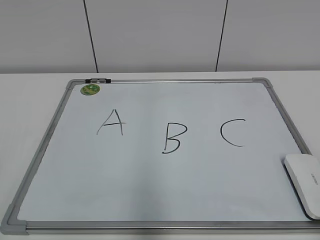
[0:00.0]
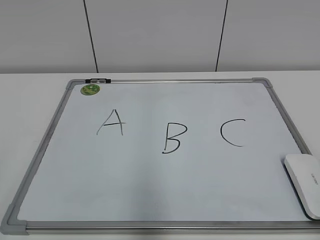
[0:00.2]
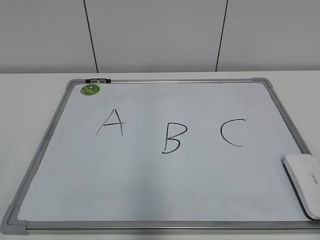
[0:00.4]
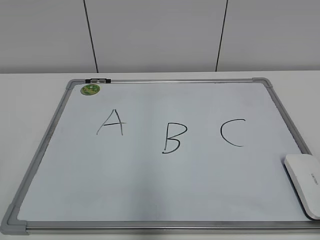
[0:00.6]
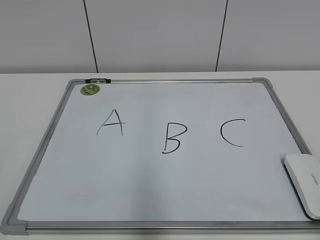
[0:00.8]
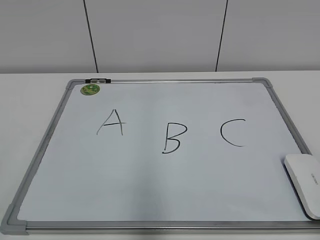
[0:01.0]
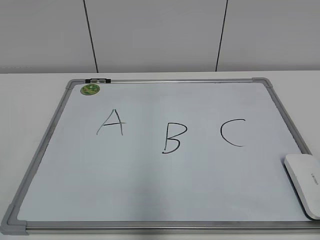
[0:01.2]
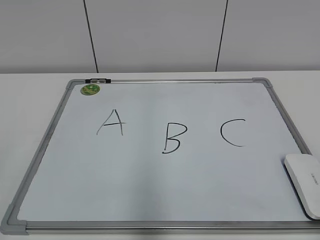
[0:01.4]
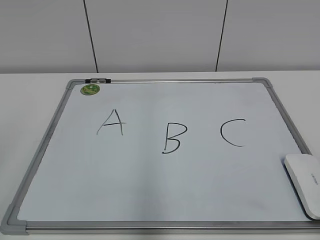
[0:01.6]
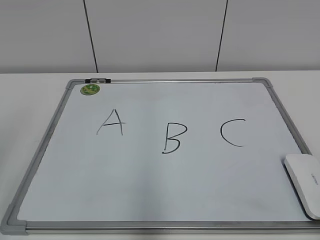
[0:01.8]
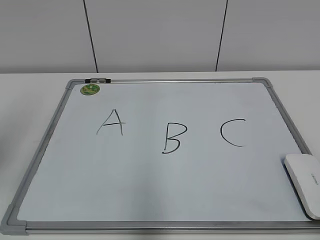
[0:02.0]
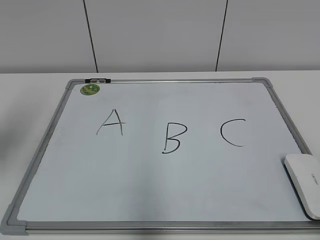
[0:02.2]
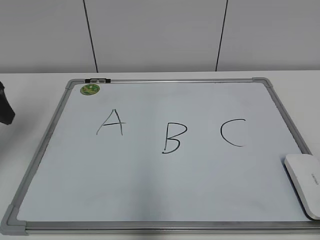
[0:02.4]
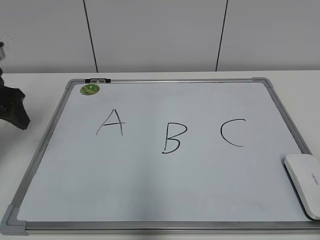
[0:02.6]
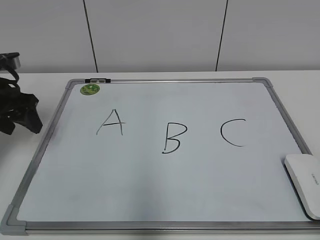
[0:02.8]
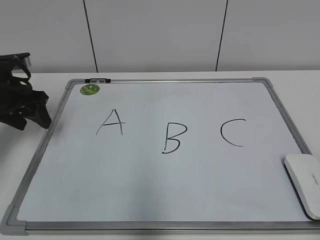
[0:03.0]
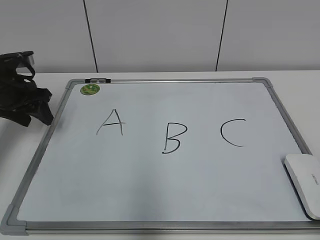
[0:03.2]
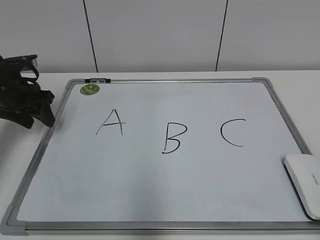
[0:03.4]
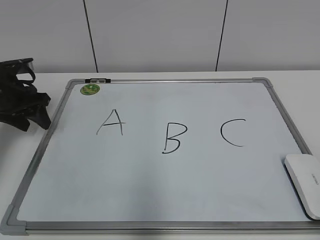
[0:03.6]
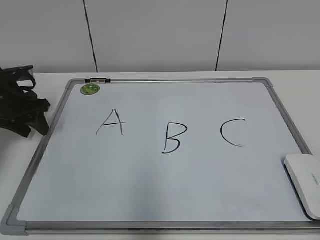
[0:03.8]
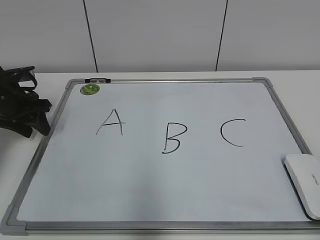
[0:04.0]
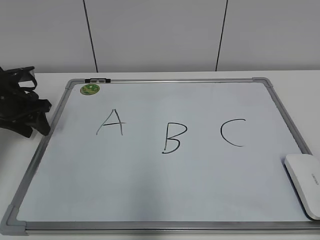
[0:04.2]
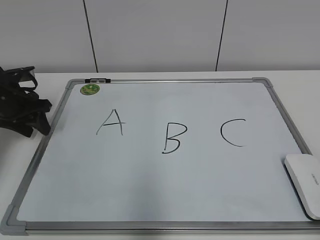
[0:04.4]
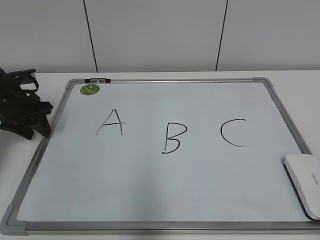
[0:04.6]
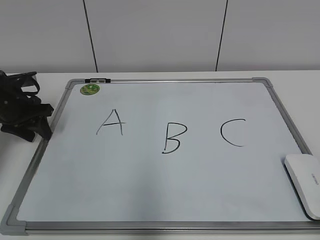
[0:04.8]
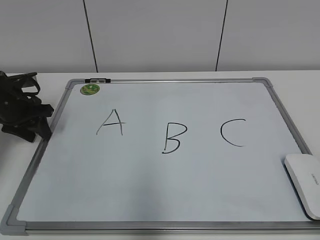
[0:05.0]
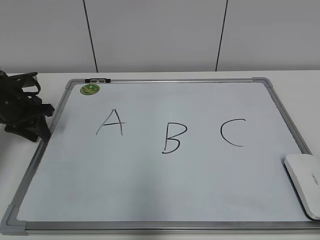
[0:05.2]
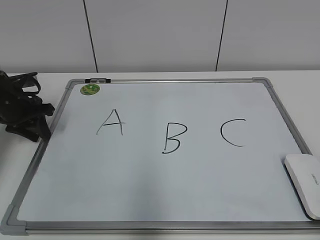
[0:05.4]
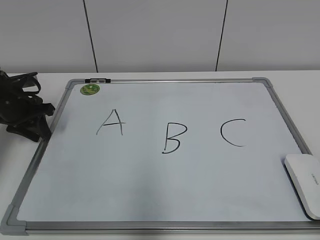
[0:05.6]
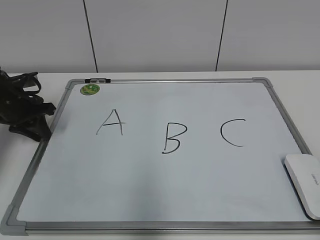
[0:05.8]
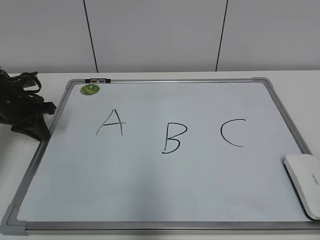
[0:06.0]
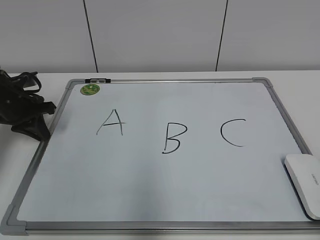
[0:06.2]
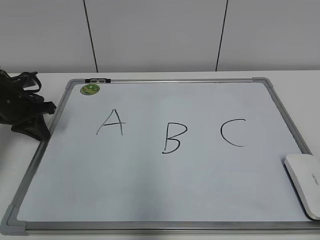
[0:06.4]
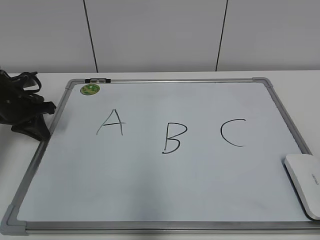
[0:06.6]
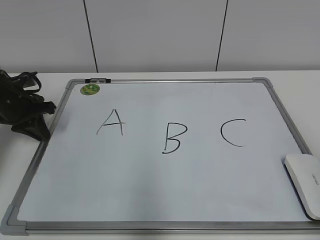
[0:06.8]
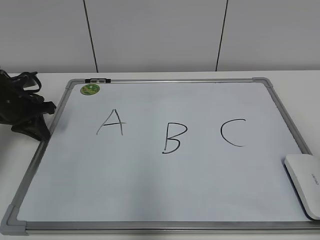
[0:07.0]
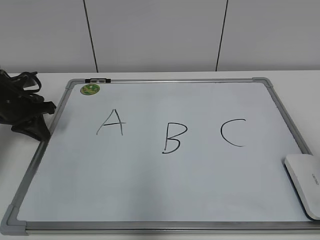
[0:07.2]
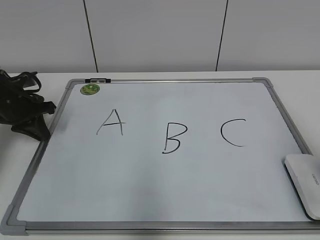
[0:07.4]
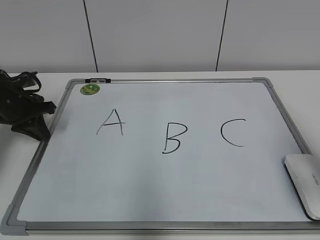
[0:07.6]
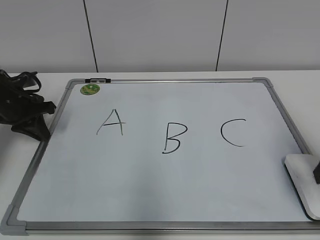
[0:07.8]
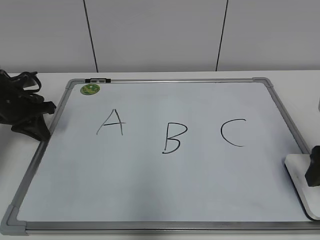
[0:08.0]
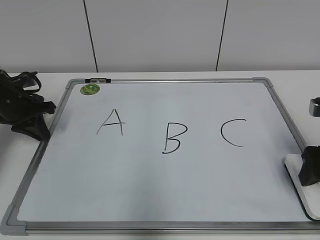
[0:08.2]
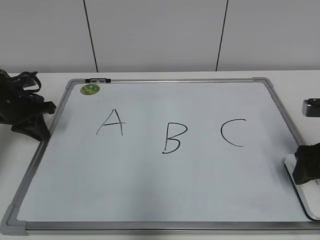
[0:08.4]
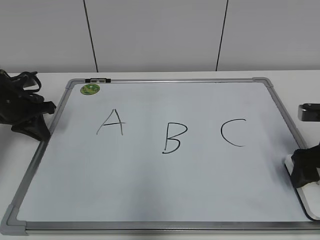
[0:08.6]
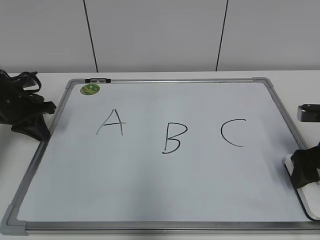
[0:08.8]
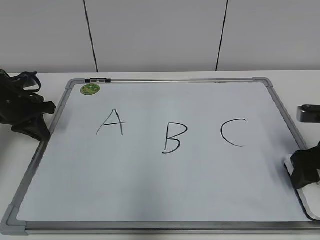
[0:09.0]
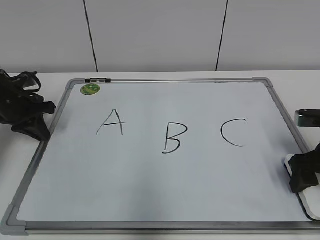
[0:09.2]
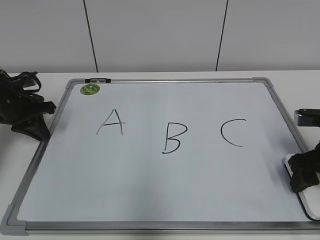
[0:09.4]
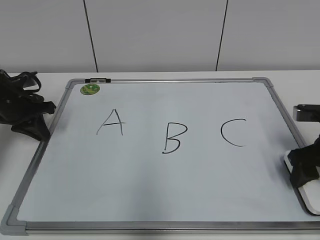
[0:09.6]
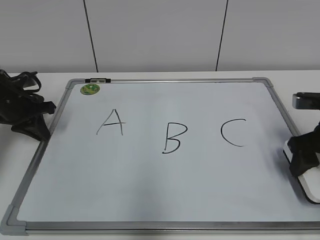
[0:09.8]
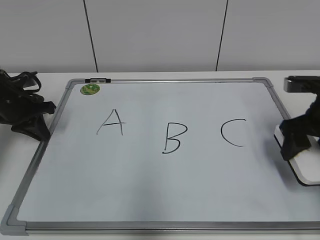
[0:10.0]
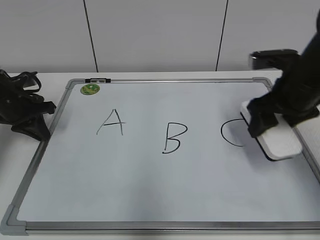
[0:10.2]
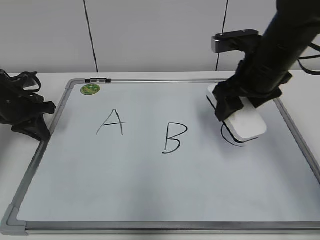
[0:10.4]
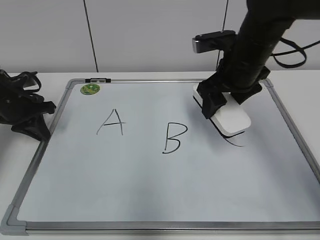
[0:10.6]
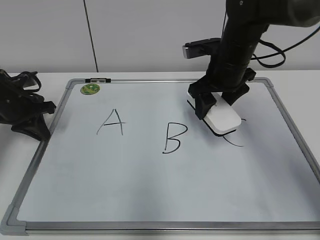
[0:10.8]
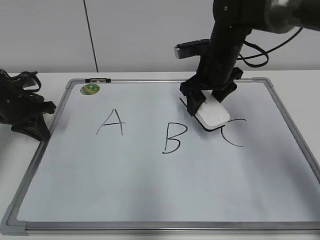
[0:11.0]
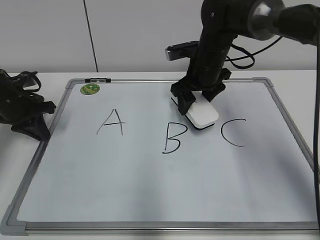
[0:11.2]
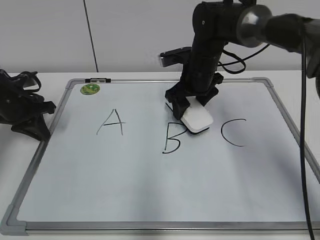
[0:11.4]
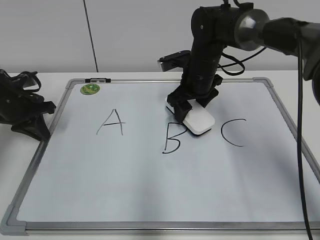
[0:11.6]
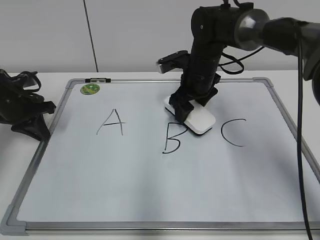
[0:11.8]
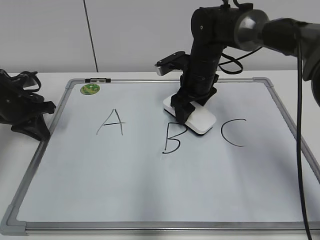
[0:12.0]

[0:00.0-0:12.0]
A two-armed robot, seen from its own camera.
Task of the whole recording: pick up the eraser on the blackboard and erase the letter "B".
Step, 0:00.0 to 0:05.8: Hold the drawing board steady with your left hand.
0:01.6 to 0:03.0: The left gripper travels forward and downward by approximately 35 cm.
0:03.0 to 0:04.4: The left gripper shifts by about 5 cm.
0:04.4 to 0:06.0: The left gripper closes its fingers.
0:06.0 to 0:07.6: The right gripper goes roughly 20 cm forward, and opens.
0:07.6 to 0:09.0: The right gripper goes roughly 10 cm forward and downward, and closes its fingers.
0:09.0 to 0:10.4: The right gripper goes roughly 15 cm to the left, upward and forward, and closes its fingers.
0:10.4 to 0:12.0: The right gripper heads forward, to the left and downward, covering roughly 15 cm.

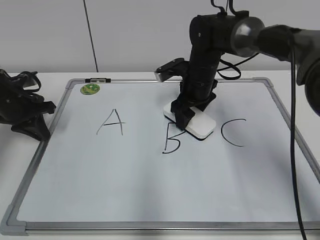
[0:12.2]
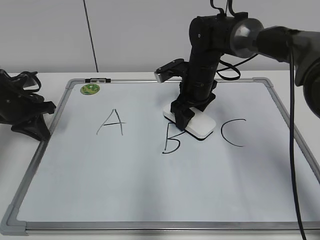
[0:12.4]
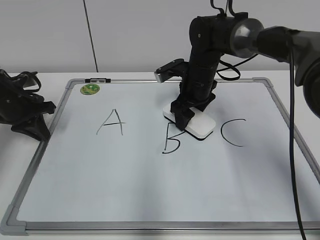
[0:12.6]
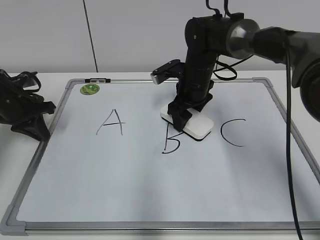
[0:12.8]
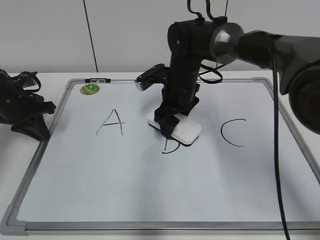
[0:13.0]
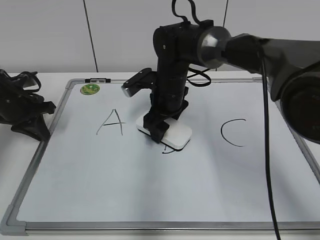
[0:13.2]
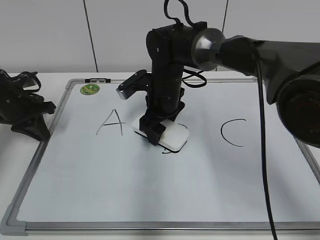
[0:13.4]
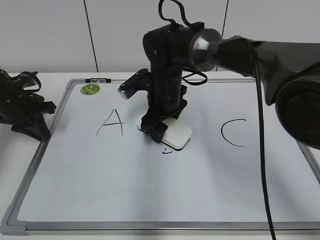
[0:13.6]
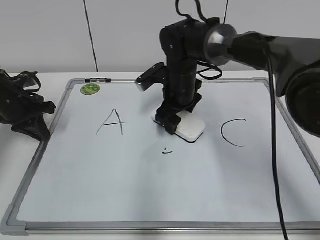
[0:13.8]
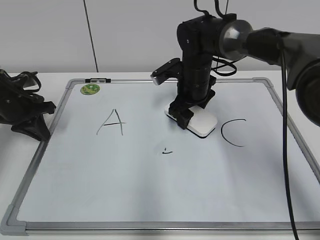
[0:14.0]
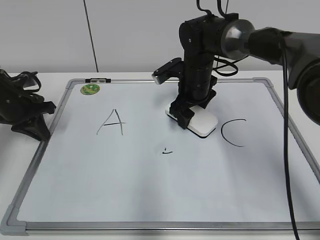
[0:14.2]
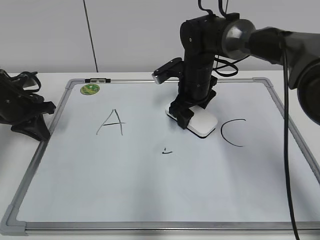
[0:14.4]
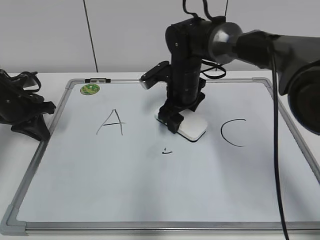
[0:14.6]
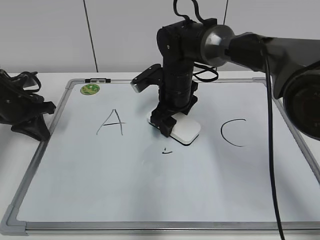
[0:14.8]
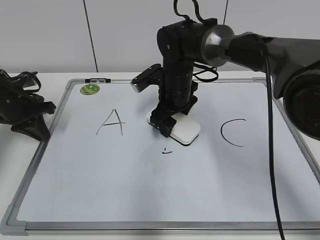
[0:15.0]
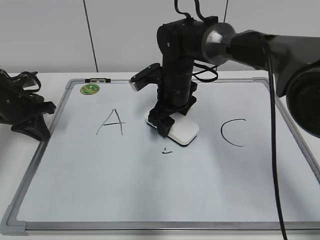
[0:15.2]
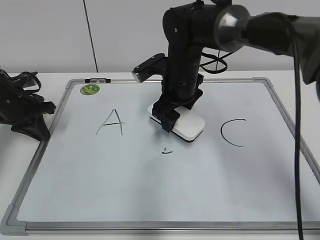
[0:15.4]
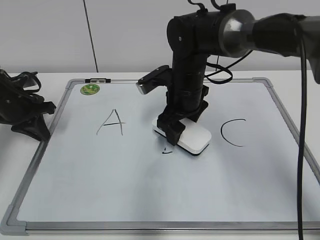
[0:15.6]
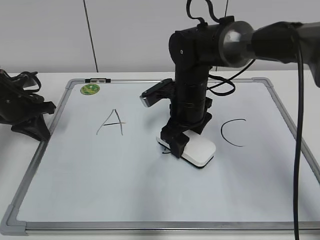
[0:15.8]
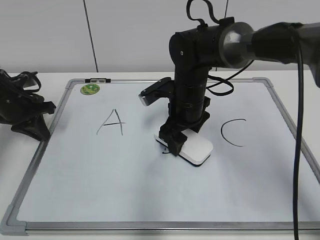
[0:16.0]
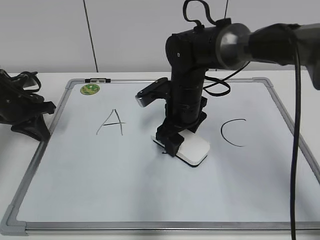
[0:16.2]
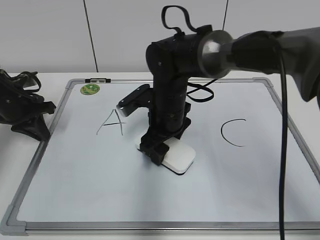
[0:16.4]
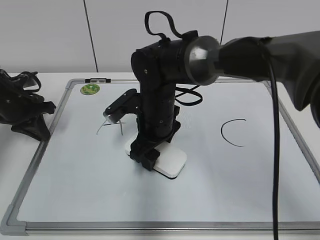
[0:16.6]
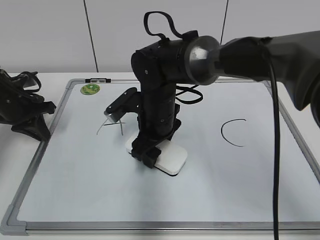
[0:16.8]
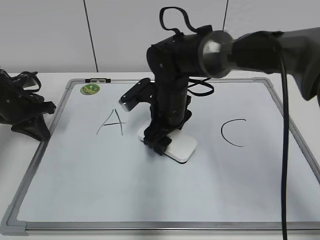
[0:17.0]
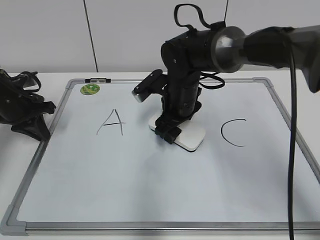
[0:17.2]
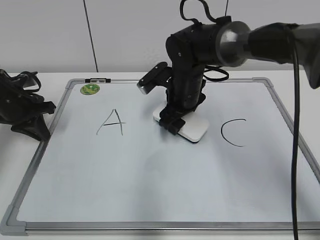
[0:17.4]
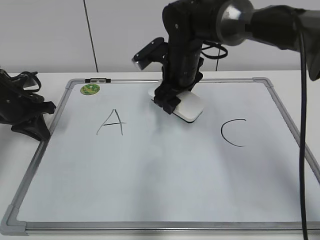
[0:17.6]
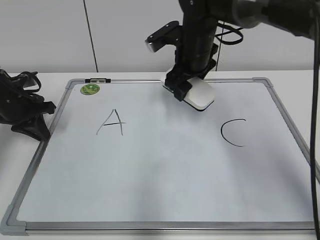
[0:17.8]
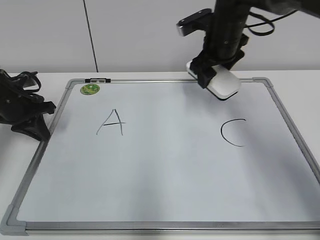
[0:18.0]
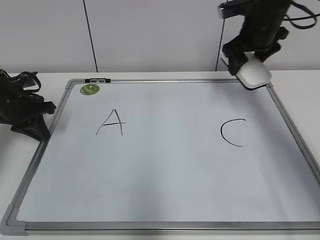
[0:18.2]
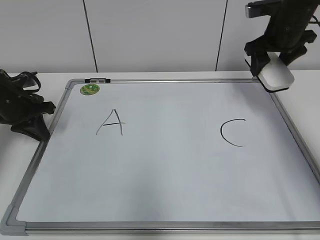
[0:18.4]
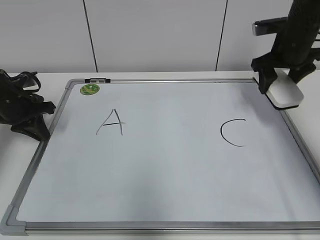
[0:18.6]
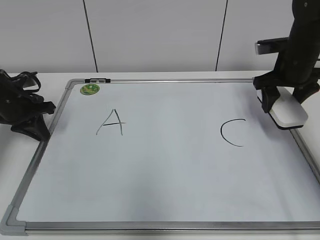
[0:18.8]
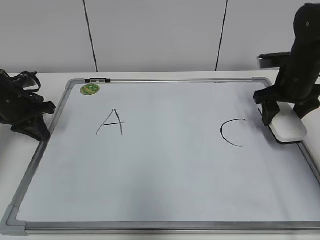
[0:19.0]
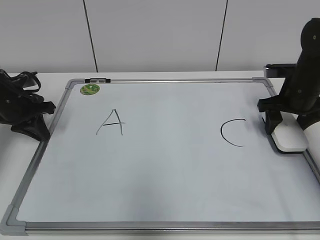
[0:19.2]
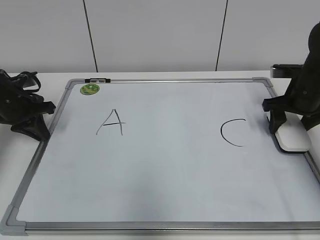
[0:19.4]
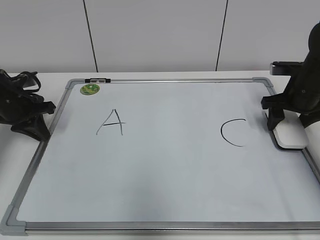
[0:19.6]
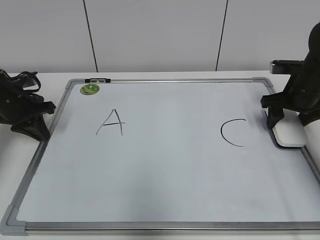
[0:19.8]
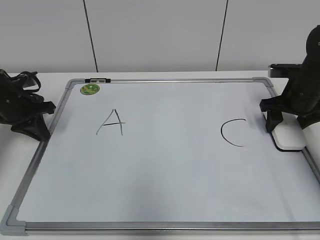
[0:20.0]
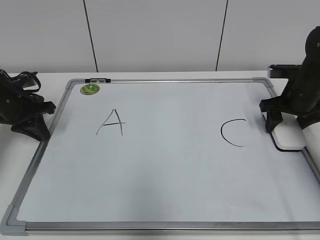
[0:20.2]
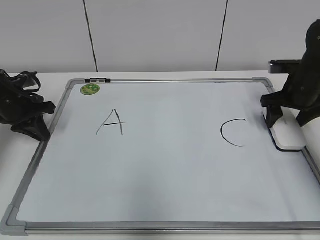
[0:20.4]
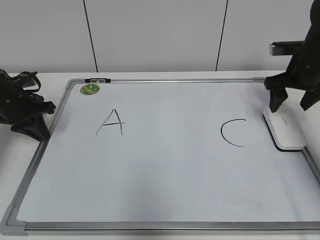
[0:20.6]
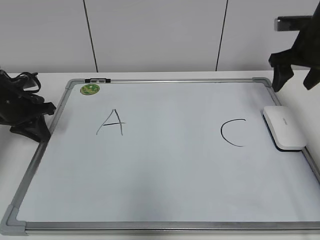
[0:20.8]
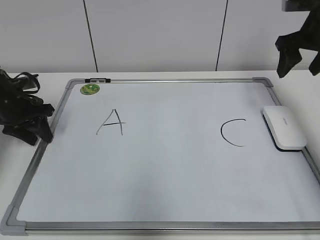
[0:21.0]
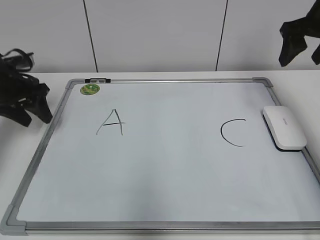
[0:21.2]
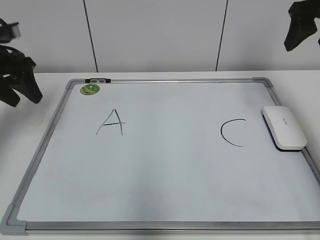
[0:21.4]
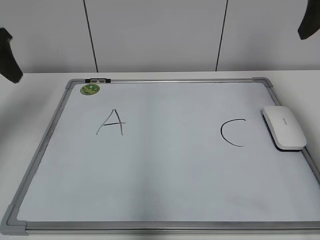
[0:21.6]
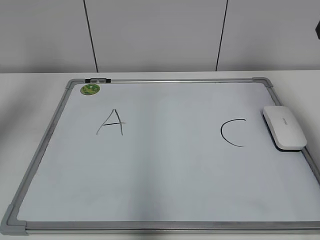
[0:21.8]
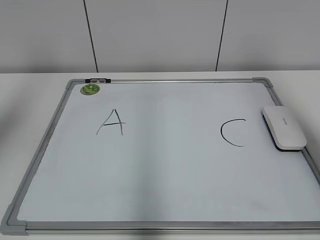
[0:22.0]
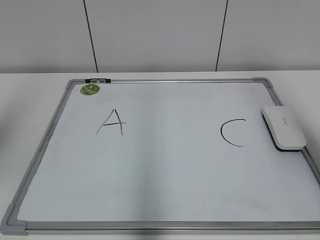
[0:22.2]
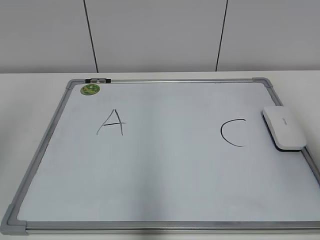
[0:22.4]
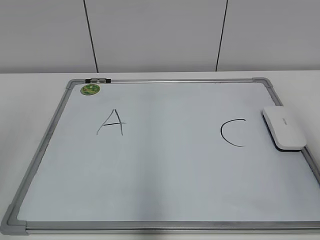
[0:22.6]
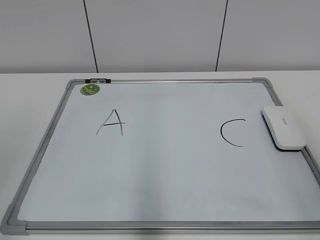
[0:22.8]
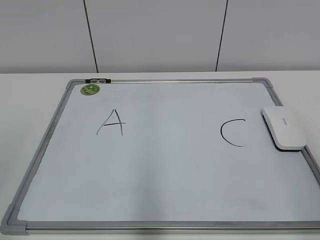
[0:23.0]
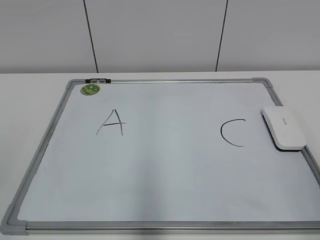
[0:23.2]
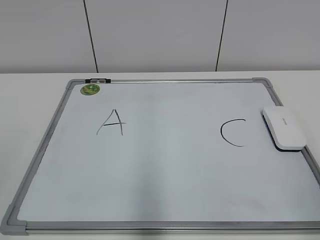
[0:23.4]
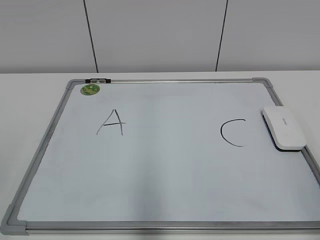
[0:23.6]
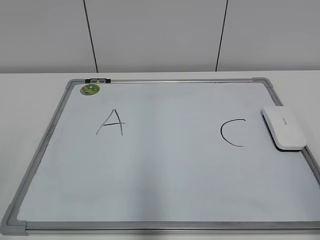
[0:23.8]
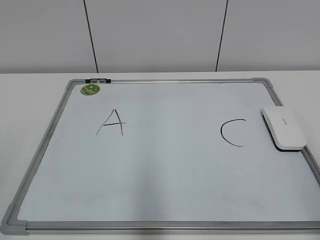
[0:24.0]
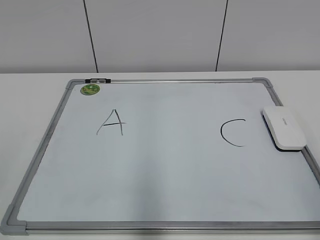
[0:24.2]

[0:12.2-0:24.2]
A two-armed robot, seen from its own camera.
Task of the whole recording: pick up the eraser on the blackboard and erase the letter "B".
Step, 0:12.2 to 0:17.2: Erase the letter B with your right hand.
Step, 0:17.4 to 0:20.4: Put down the eraser with your right hand.
0:13.8 to 0:15.2: The grippers stay close to where they were, moving slightly.
0:15.2 to 0:16.6: The right gripper travels backward by about 5 cm.
0:16.6 to 0:18.2: The right gripper shifts roughly 25 cm to the right, forward and upward.
0:18.2 to 0:19.8: The right gripper travels downward, to the right and backward by approximately 15 cm.
0:19.8 to 0:21.2: The left gripper opens up, while the right gripper moves upward, approximately 15 cm, and opens up.
0:21.2 to 0:22.6: The left gripper goes approximately 35 cm backward and upward; the right gripper moves backward, some 30 cm.
